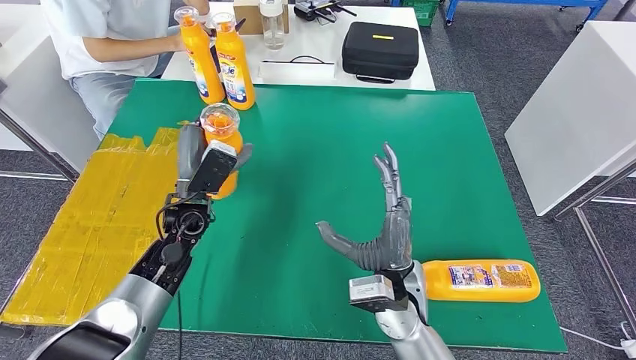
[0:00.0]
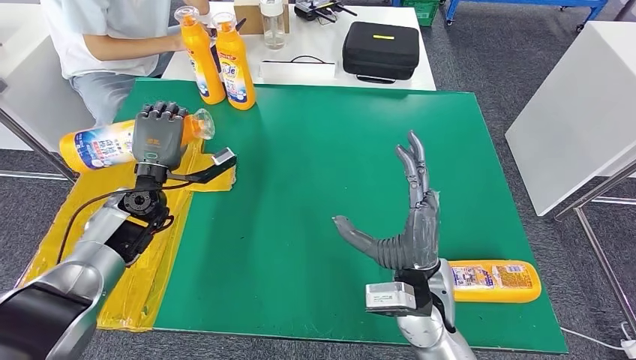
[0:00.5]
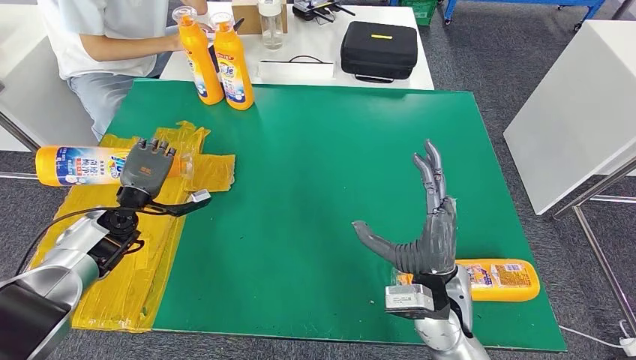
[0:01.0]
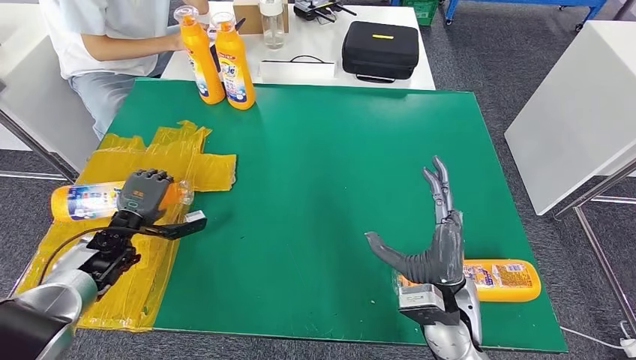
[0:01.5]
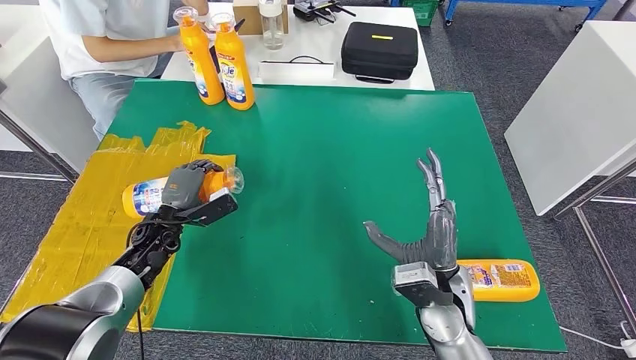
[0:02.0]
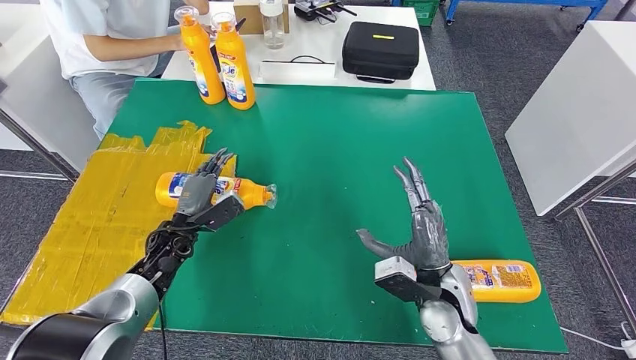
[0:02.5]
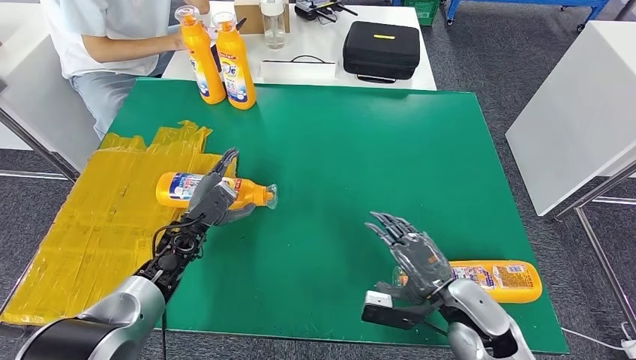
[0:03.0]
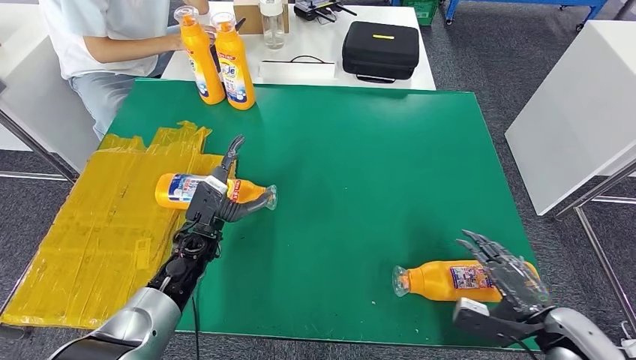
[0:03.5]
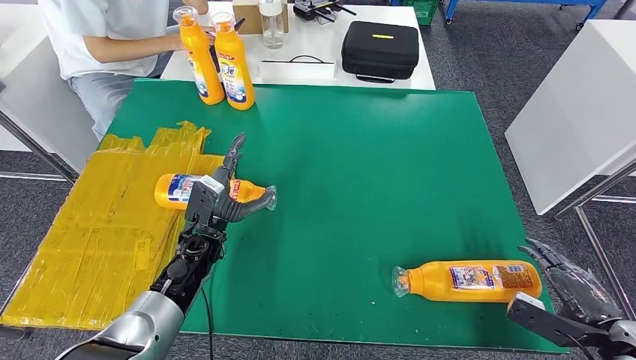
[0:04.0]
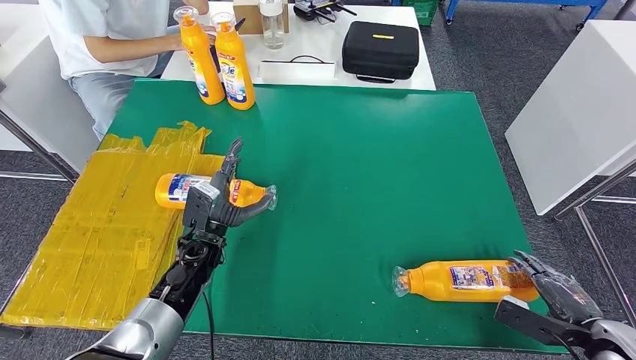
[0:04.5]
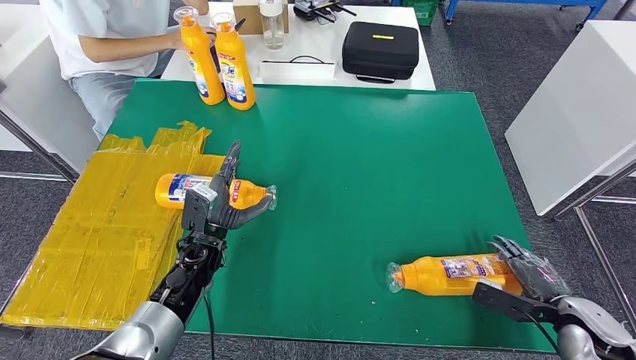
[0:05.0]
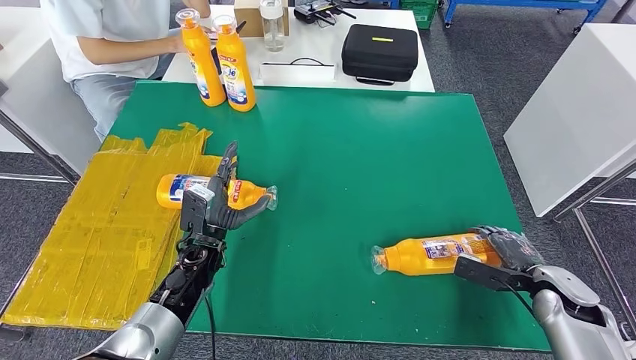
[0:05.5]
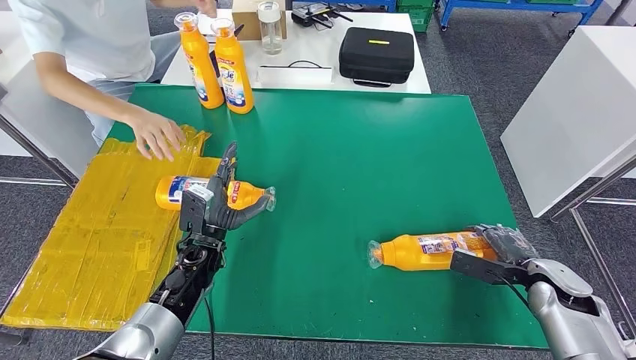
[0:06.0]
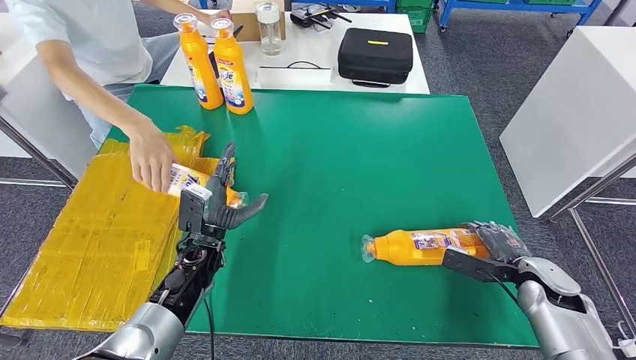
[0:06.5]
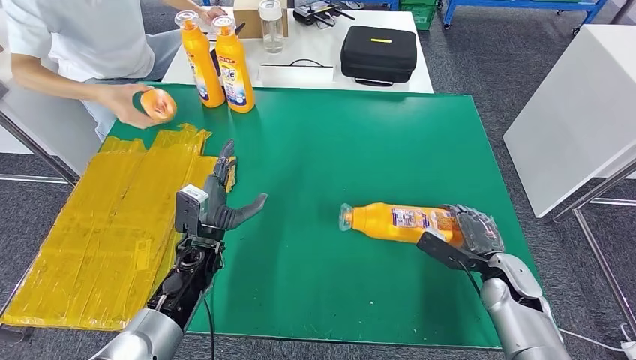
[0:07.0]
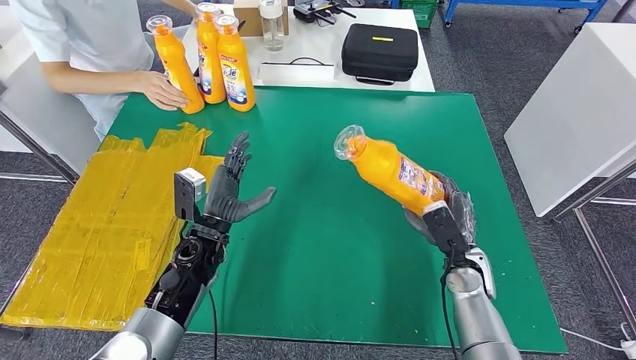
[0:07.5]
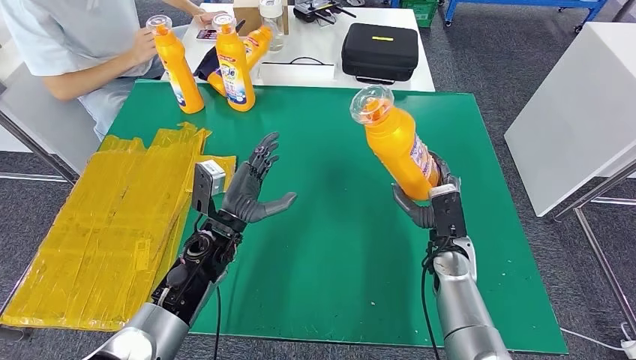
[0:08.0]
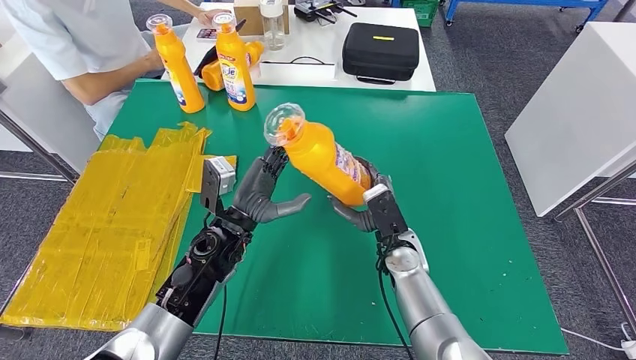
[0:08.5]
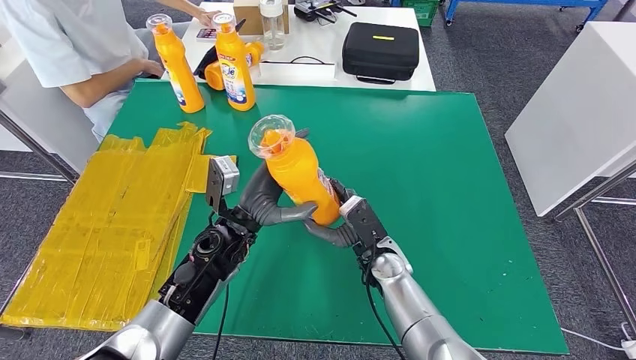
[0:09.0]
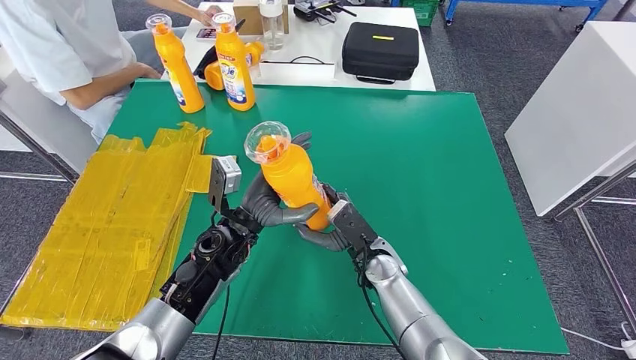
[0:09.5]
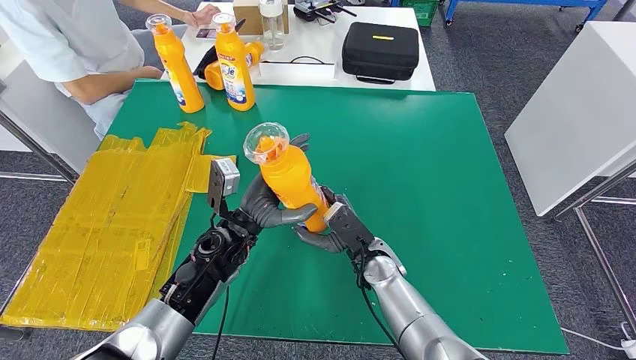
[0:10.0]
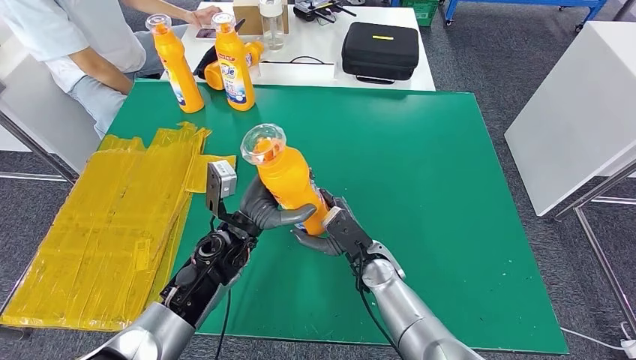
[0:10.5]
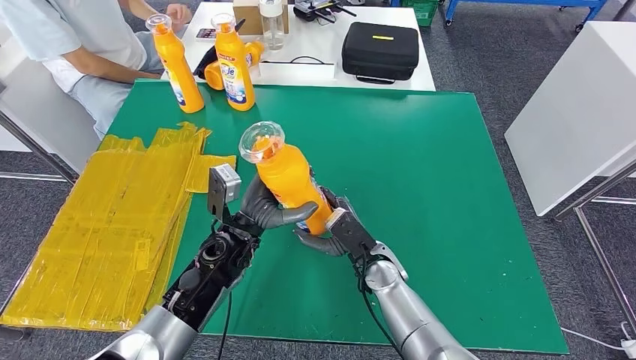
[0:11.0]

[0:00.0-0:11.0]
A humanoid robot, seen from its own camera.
Step, 0:00.0 to 0:03.0: Flip the fast-moving consumer goods bottle to the front side.
Step, 0:06.0 to 0:08.0: Pick up the fast-moving consumer goods bottle from the table.
0:00.0 to 0:02.0: The right hand shifts some 5 cm to the right; the left hand heads to the left and downward, covering about 15 cm.
0:02.0 to 0:03.5: The right hand moves to the right, approximately 20 cm, while the left hand is displaced to the right by roughly 10 cm.
0:03.5 to 0:05.5: The right hand heads forward, covering about 10 cm.
0:05.5 to 0:07.5: The right hand moves to the left, approximately 15 cm.
0:09.0 to 0:11.0: The hands stay close to where they were, moving slightly.

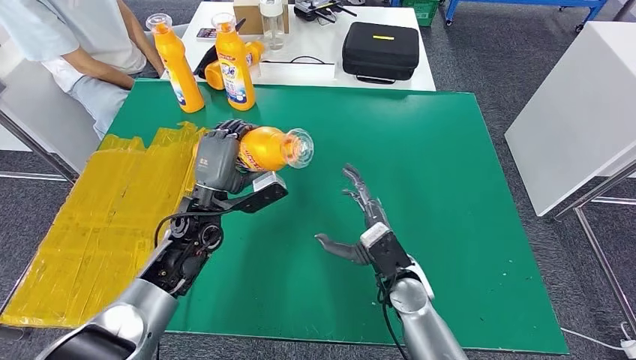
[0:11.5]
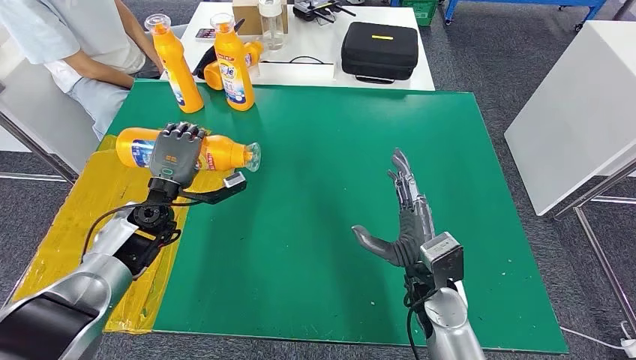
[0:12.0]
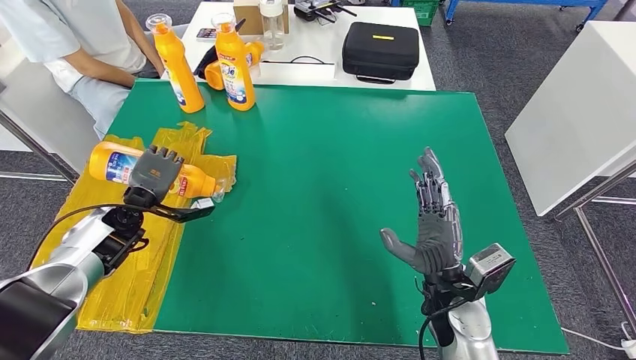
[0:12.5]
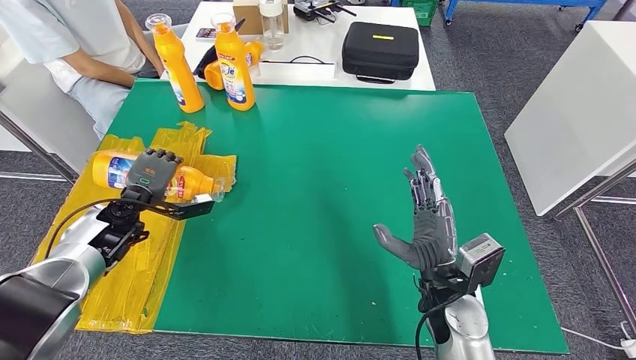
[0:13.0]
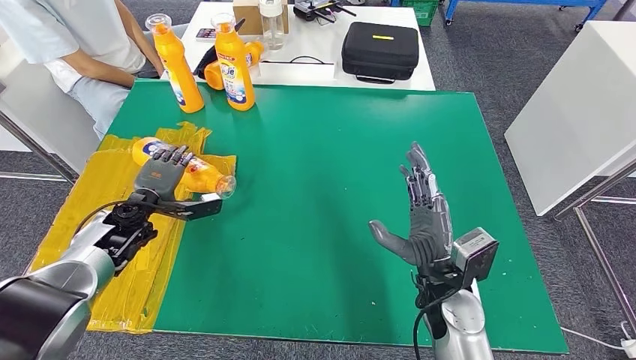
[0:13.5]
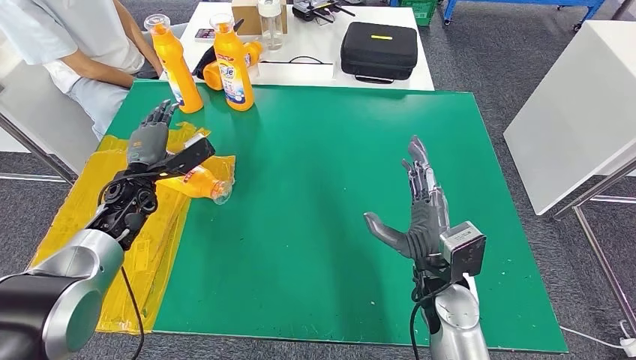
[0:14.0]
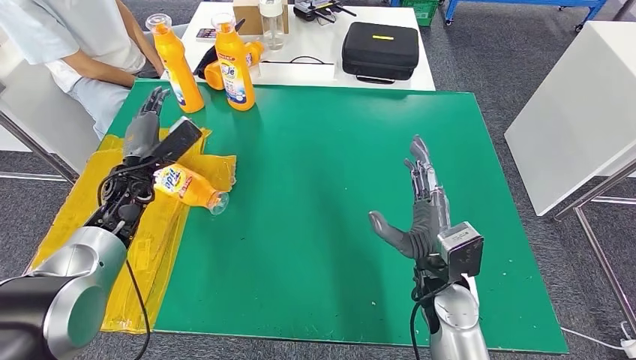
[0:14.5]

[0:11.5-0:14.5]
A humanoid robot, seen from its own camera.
Step, 0:11.5 to 0:14.5: Flip the fast-moving consumer goods bottle to the front side.
0:13.0 to 0:14.5: The left hand moves about 5 cm.
